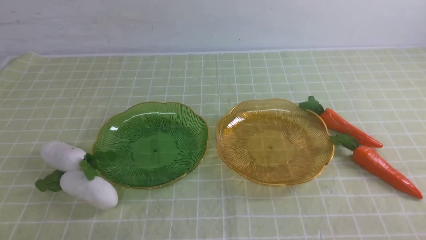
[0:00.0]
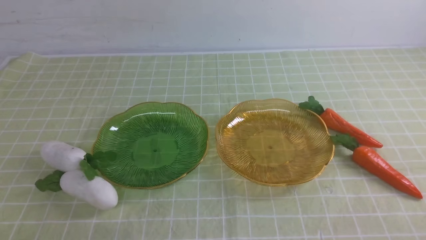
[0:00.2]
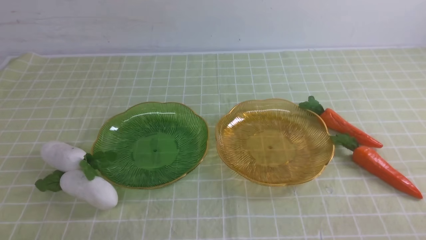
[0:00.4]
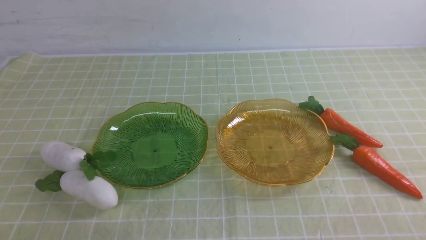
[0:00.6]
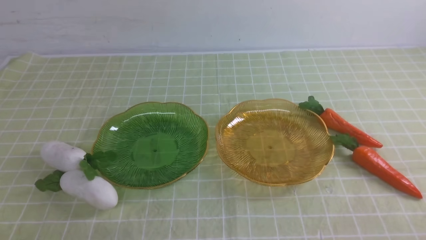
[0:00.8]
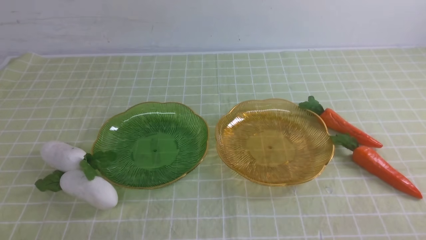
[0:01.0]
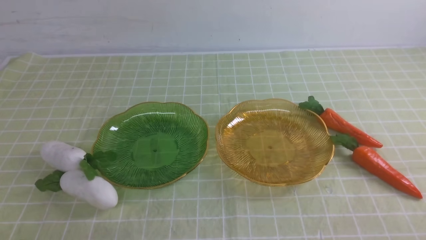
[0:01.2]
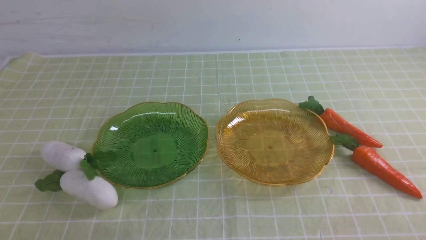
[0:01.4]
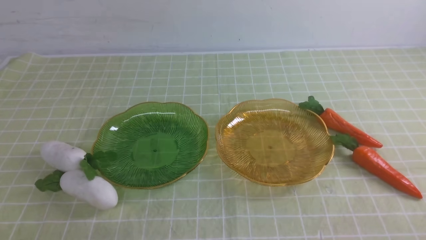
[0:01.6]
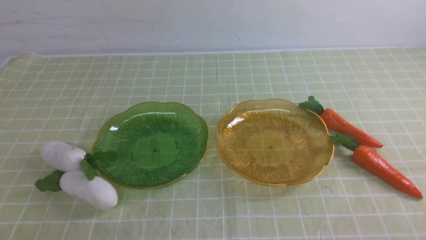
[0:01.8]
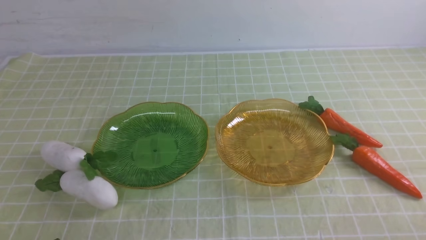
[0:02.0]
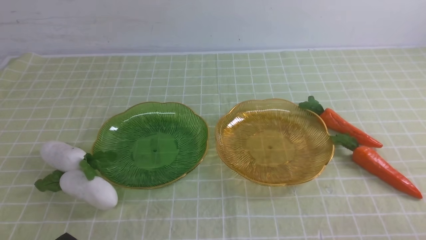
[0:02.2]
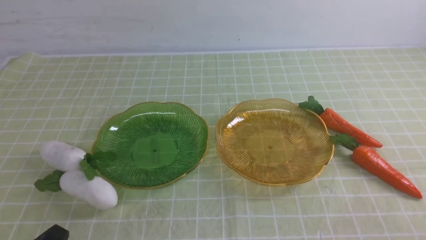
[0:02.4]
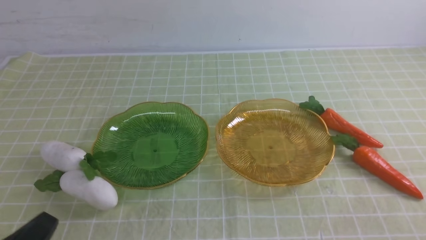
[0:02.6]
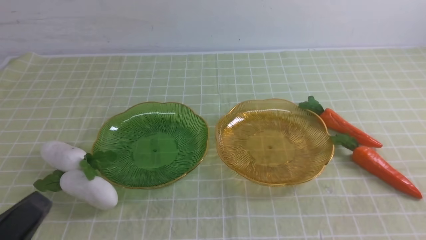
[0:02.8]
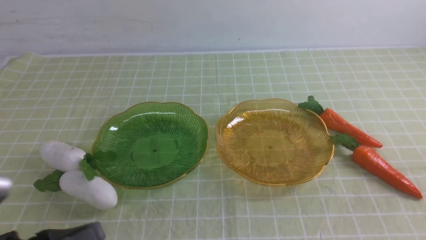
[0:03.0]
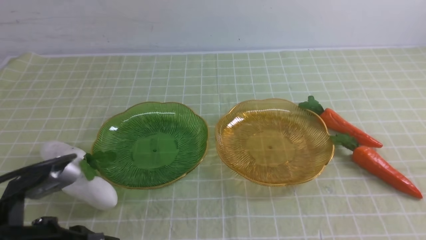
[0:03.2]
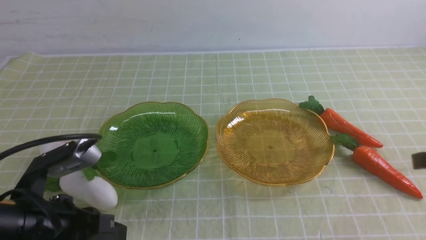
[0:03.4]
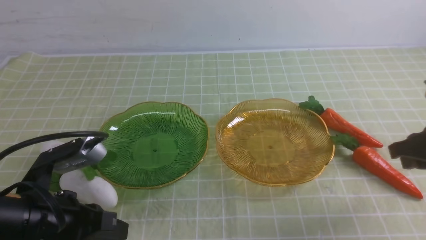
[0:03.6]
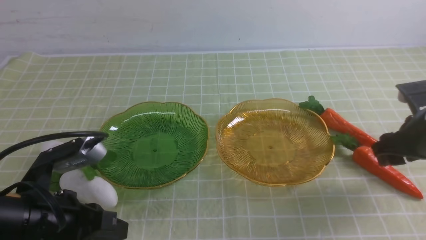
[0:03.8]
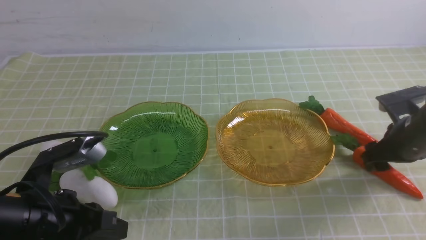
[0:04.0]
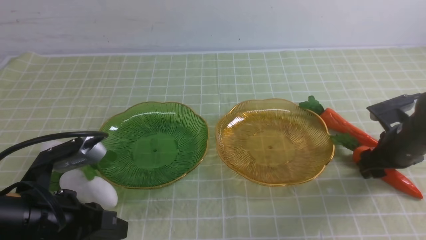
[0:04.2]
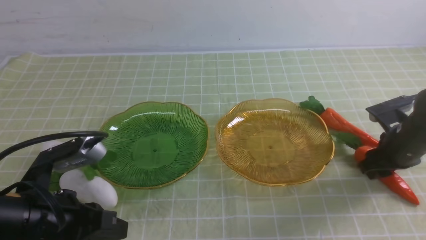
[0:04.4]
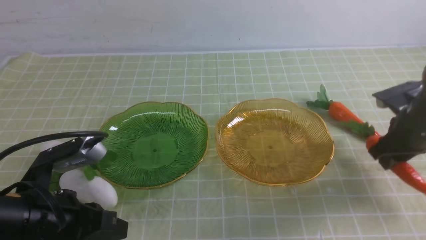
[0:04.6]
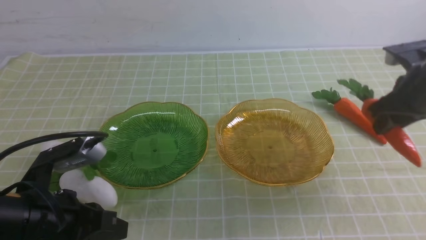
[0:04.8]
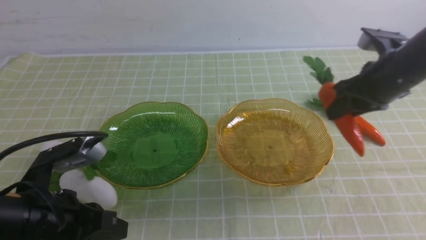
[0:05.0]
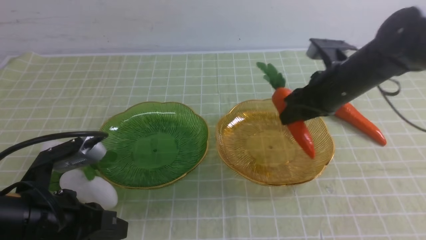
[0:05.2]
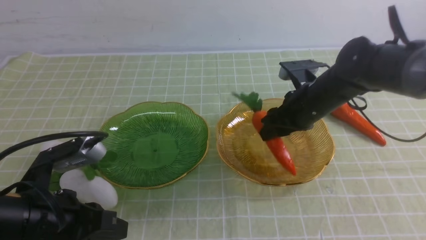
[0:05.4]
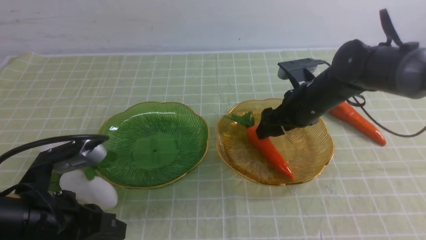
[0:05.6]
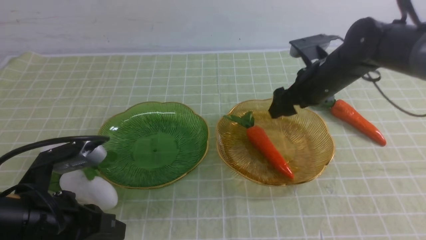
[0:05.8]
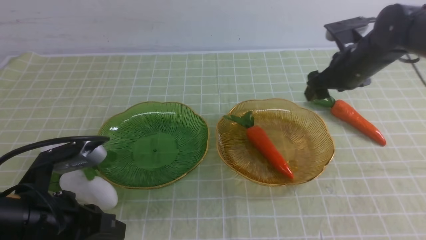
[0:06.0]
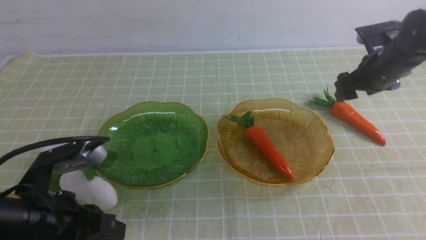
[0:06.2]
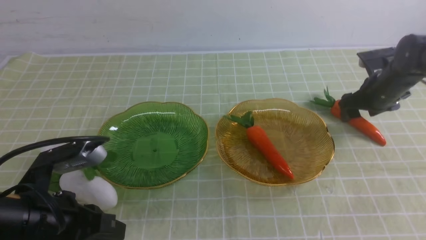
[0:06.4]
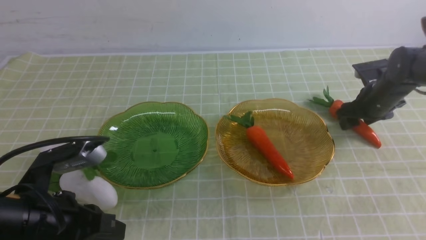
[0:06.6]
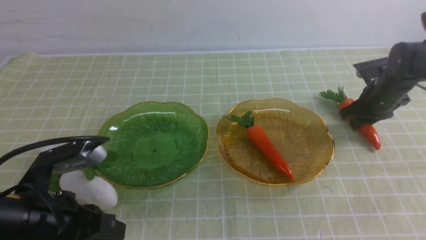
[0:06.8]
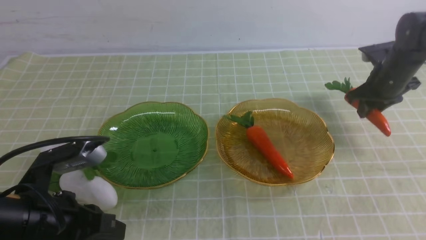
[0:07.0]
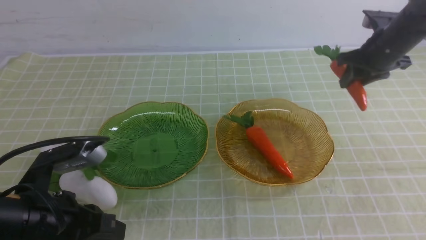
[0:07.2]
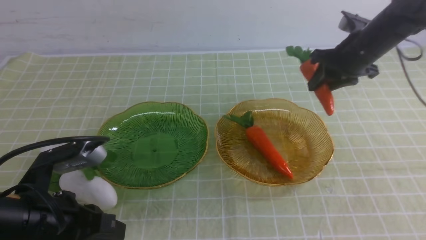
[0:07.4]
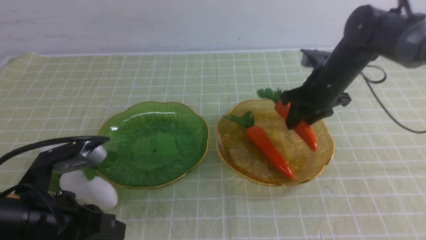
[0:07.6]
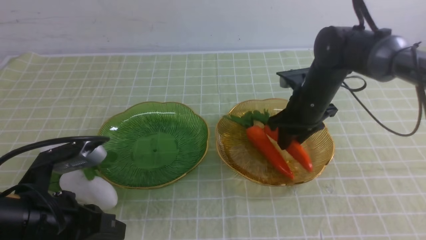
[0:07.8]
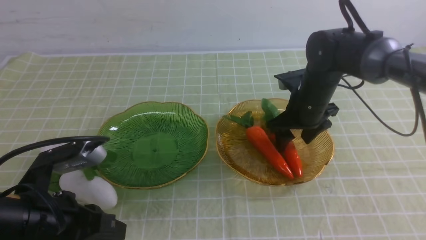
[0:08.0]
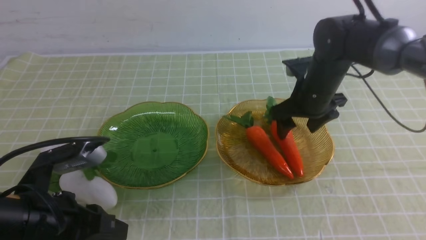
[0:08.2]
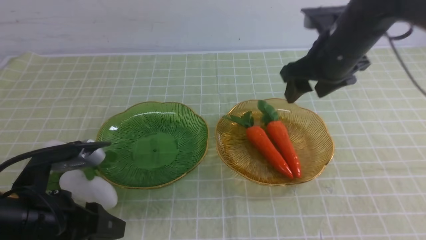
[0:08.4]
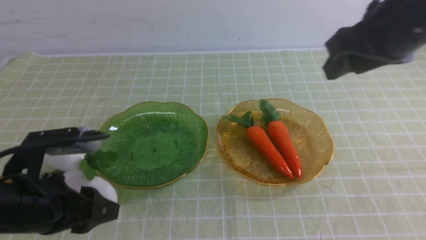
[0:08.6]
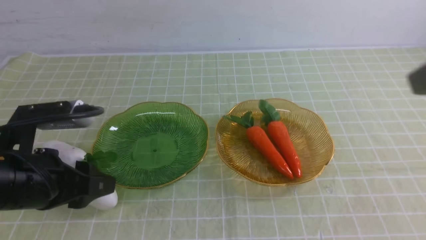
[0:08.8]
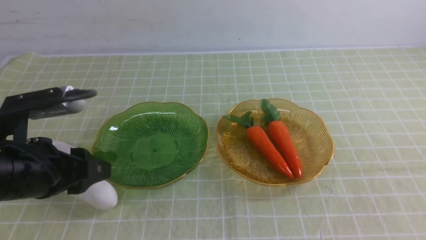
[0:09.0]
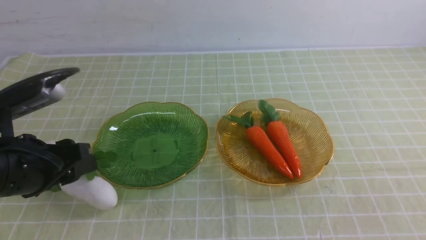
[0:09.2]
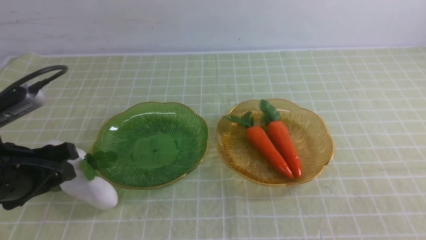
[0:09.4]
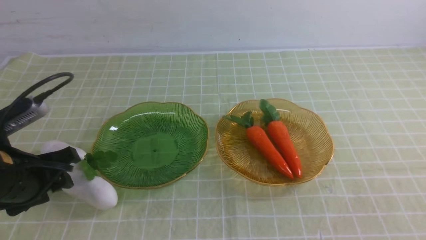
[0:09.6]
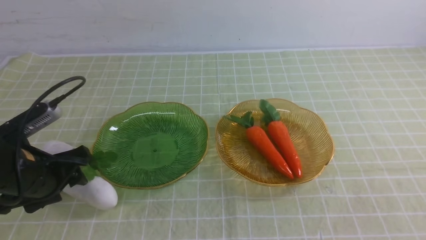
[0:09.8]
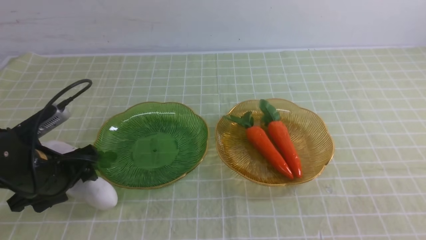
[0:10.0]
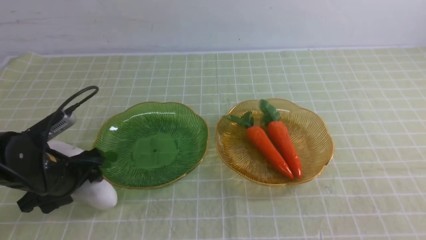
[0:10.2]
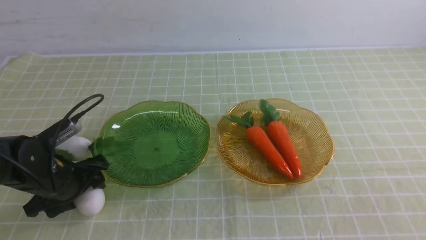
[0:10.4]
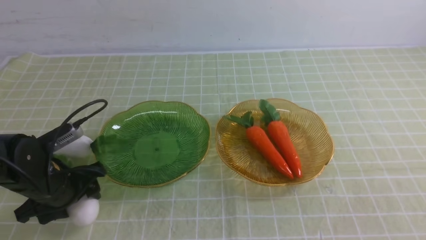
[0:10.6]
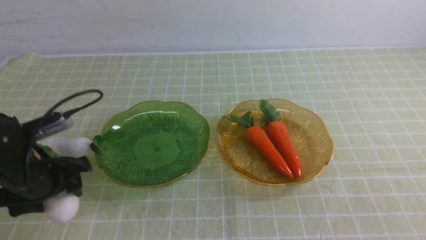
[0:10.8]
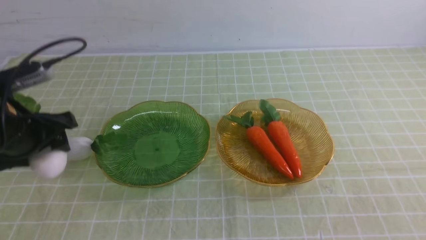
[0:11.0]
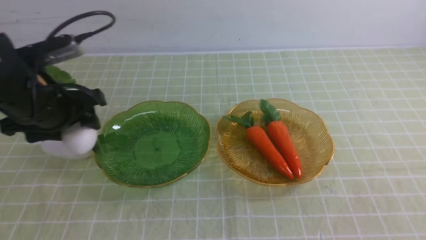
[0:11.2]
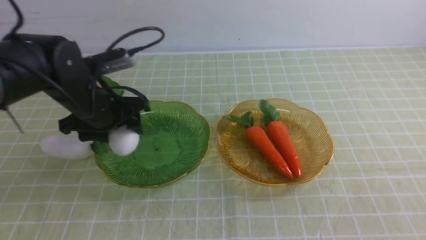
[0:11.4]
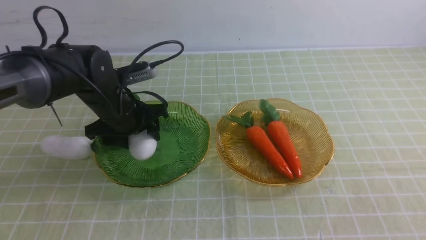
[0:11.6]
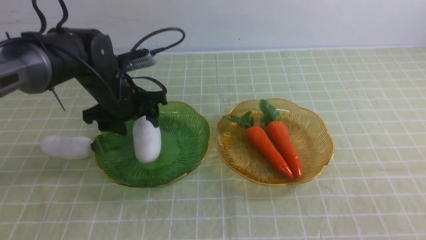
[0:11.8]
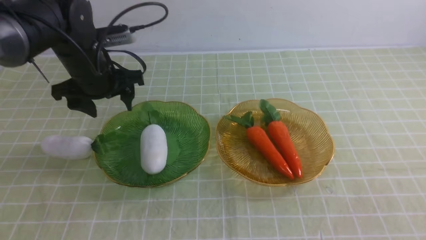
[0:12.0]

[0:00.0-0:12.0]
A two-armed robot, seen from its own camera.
Step, 0:00.0 to 0:07.8: use the right arm to grab a carrot and put it into the right plate.
0:01.6 to 0:03.0: The left gripper travels upward by some 10 cm.
0:03.0 to 0:04.4: The right gripper travels forward and downward by roughly 30 cm, and opens. Meanwhile the left gripper travels forward by roughly 10 cm.
0:04.4 to 0:06.0: The right gripper travels to the left, forward and upward by about 15 cm, and opens.
0:06.0 to 0:07.6: The right gripper moves roughly 10 cm to the right and comes back, and closes its fingers.
0:07.6 to 0:09.0: The right gripper goes some 40 cm backward and upward, and opens, then closes again, while the left gripper shifts by approximately 5 cm, and opens up.
0:09.0 to 0:10.4: The left gripper moves downward and forward, roughly 15 cm.
0:10.4 to 0:12.0: The left gripper goes some 15 cm forward, upward and to the right.

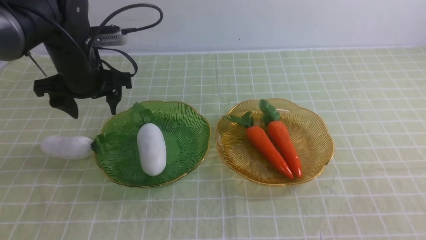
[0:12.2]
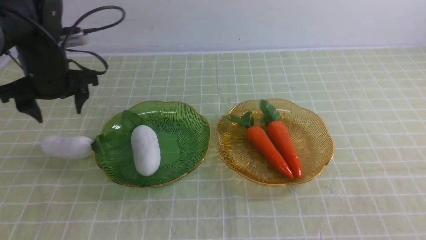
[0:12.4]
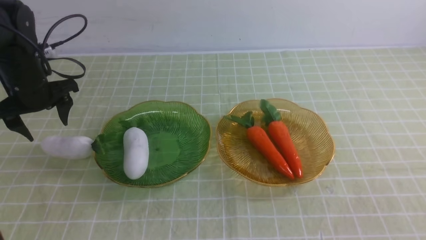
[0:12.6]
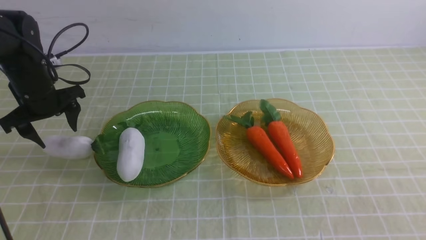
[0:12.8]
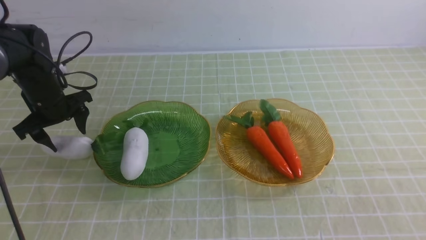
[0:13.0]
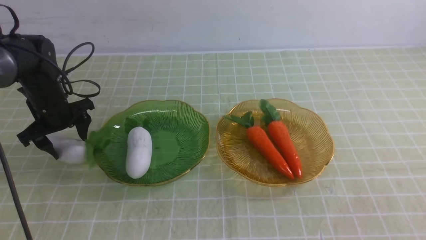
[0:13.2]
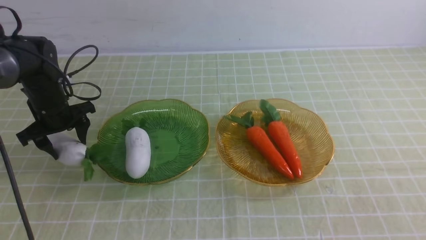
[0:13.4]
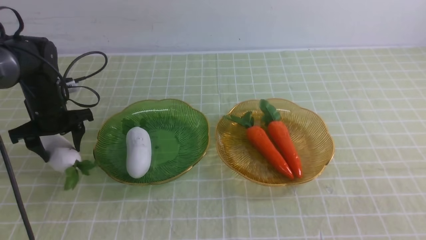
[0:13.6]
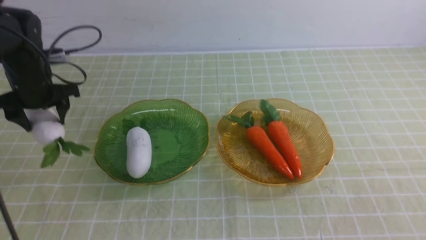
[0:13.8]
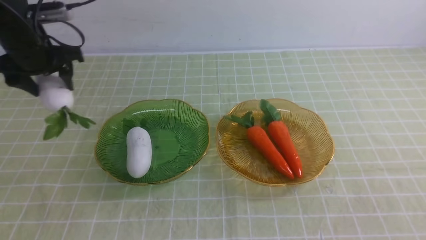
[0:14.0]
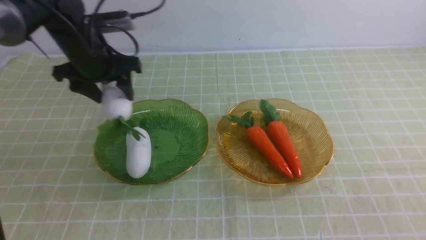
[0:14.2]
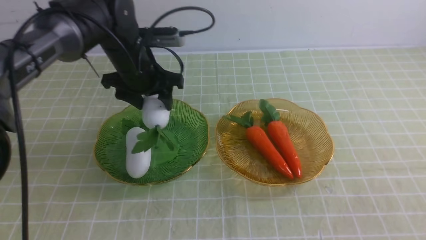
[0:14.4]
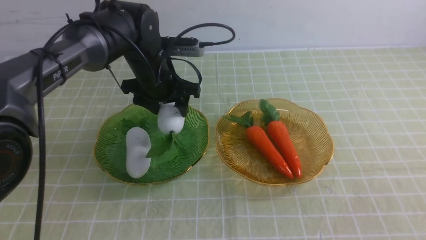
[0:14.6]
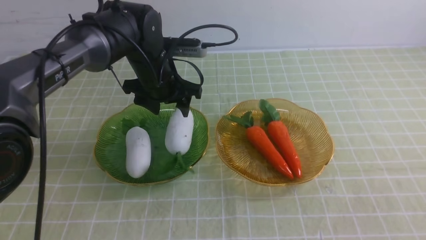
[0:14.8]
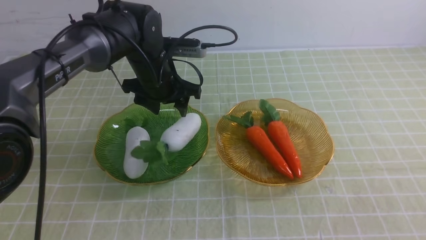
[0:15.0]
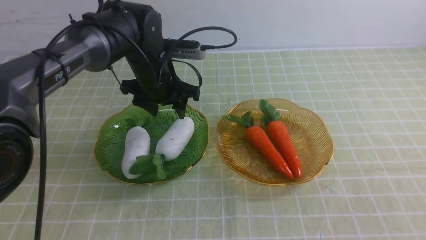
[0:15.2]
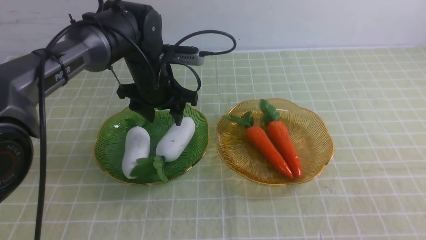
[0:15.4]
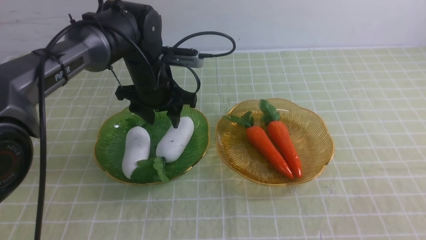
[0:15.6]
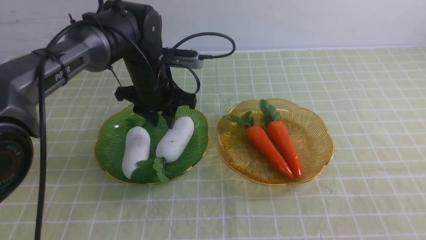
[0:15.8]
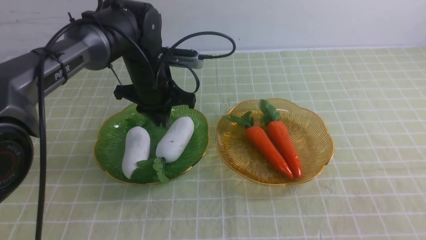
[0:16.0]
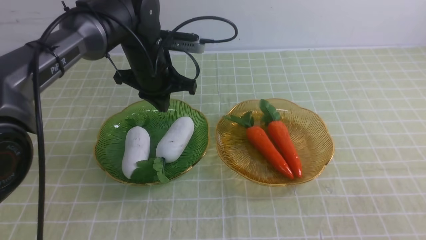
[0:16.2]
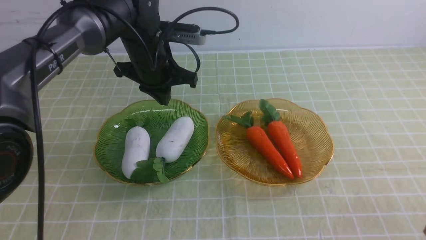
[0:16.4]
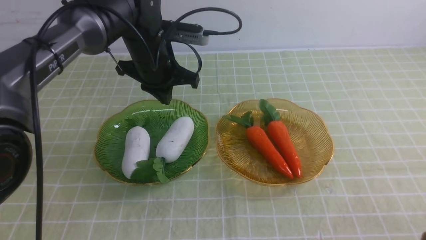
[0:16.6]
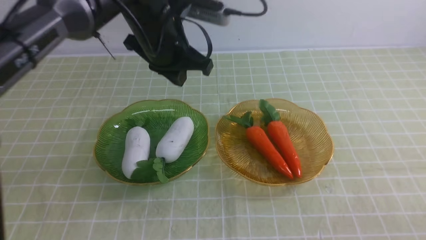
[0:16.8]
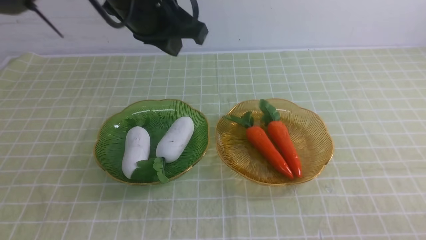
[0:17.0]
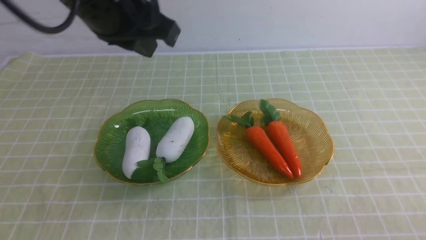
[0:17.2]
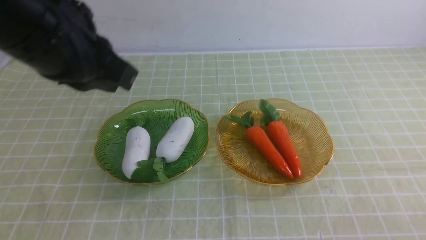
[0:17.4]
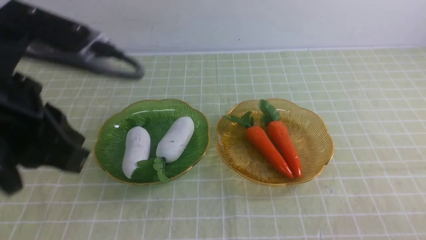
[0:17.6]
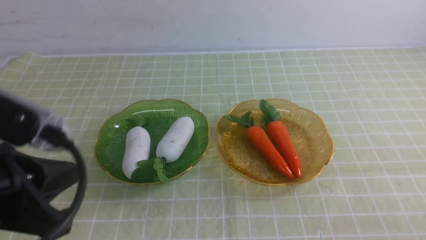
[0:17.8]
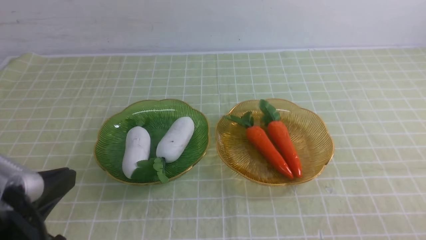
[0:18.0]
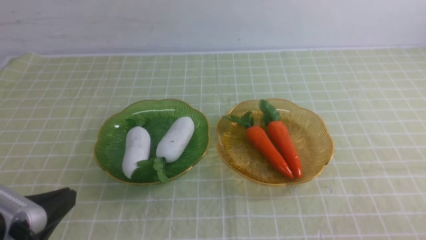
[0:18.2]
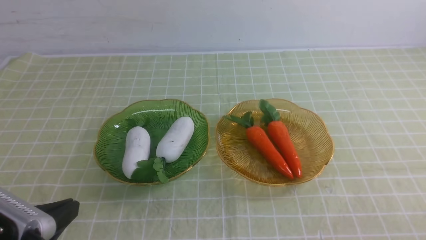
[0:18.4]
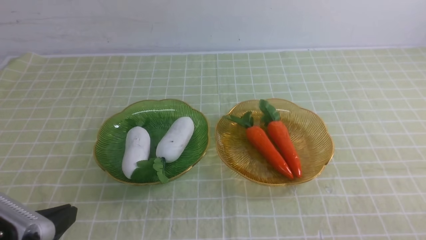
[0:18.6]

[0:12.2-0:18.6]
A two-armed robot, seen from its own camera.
Step, 0:12.2 to 0:15.4: use the left arm to grab a radish and put it into the left plate.
0:12.2 to 0:13.8: The left gripper shifts some 10 cm to the left and downward.
0:13.8 to 0:15.4: The left gripper shifts some 20 cm to the right.
0:15.4 to 0:17.0: The left gripper goes approximately 15 cm upward and backward, and closes its fingers; the right gripper travels downward by about 15 cm.
0:17.0 to 0:18.6: The left gripper goes roughly 35 cm backward, to the left and downward.
